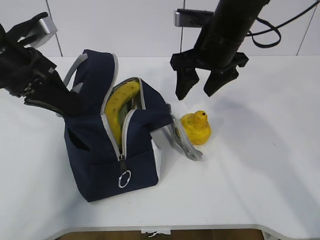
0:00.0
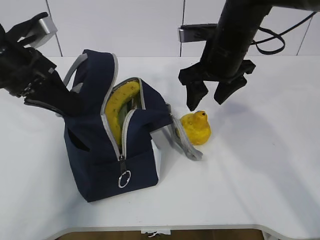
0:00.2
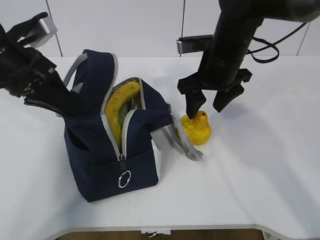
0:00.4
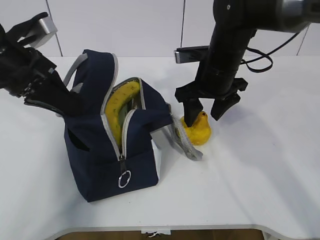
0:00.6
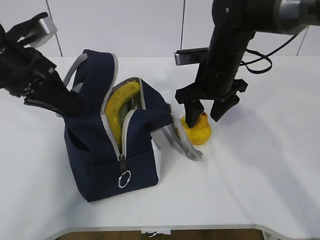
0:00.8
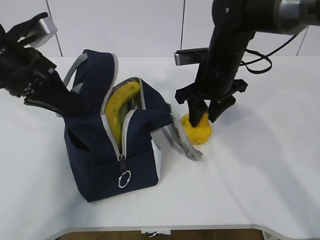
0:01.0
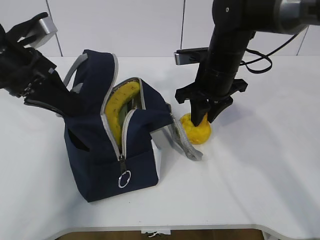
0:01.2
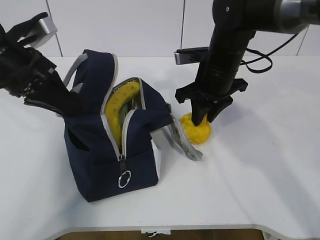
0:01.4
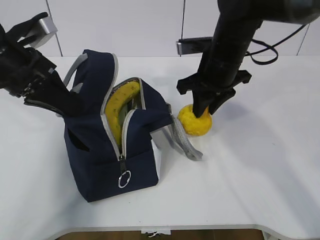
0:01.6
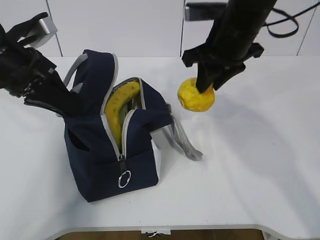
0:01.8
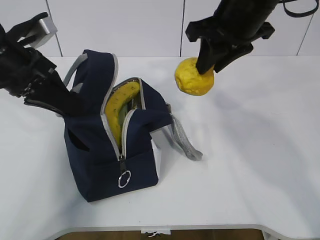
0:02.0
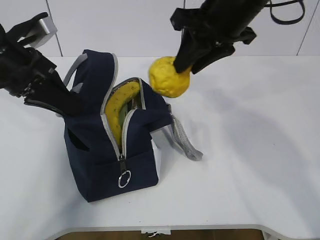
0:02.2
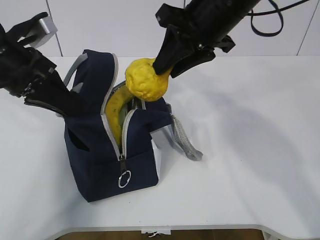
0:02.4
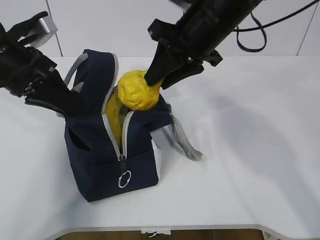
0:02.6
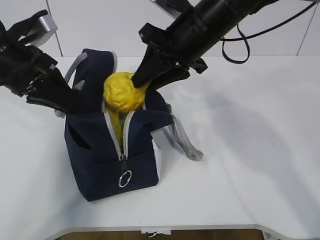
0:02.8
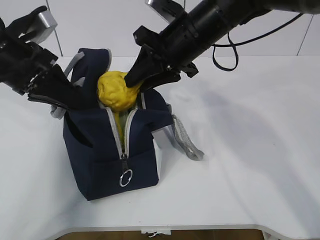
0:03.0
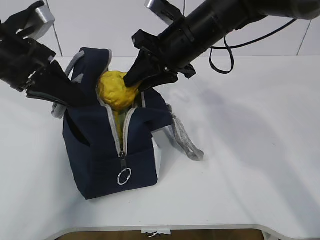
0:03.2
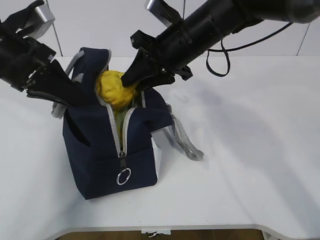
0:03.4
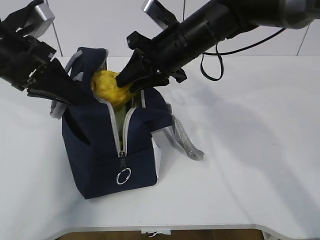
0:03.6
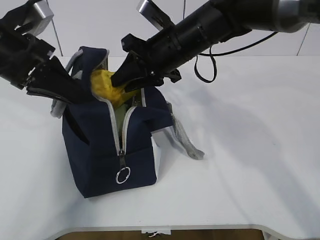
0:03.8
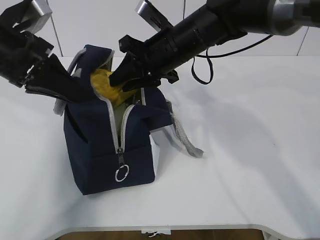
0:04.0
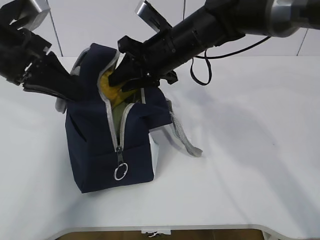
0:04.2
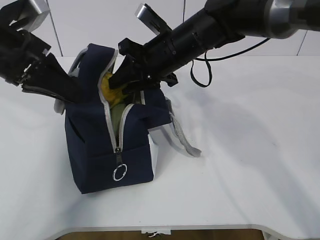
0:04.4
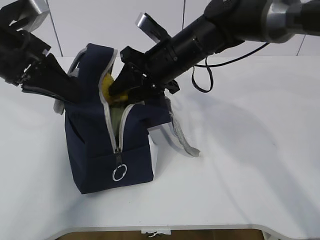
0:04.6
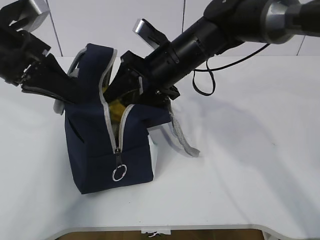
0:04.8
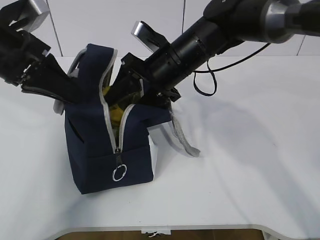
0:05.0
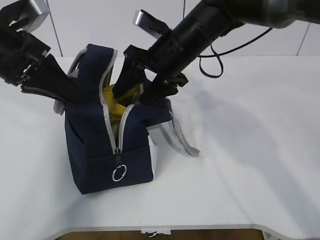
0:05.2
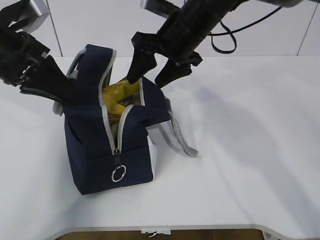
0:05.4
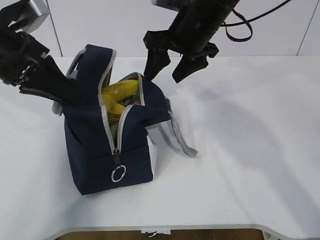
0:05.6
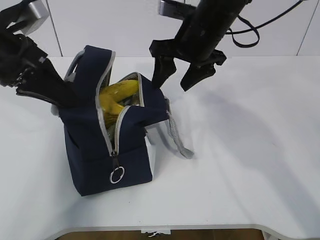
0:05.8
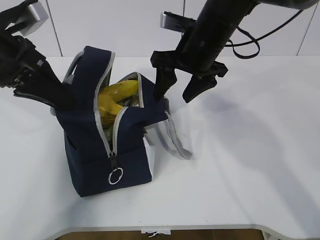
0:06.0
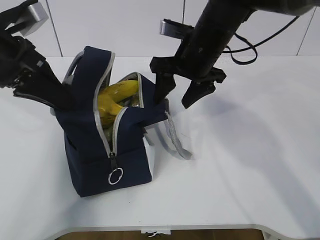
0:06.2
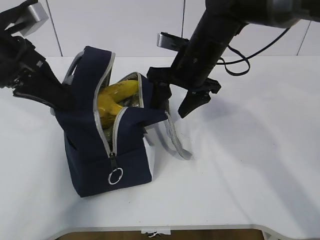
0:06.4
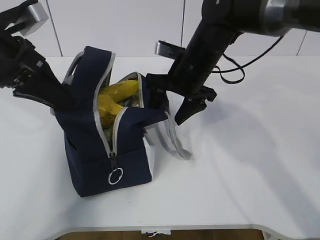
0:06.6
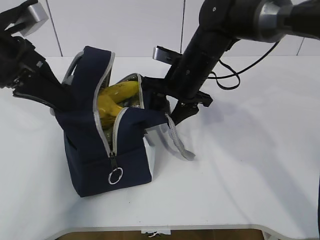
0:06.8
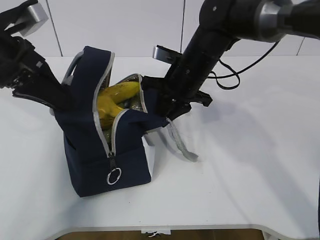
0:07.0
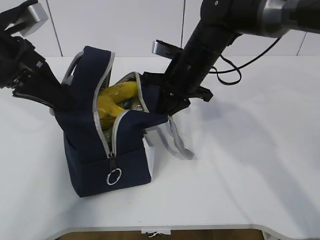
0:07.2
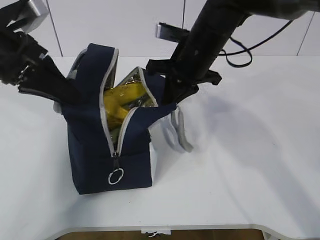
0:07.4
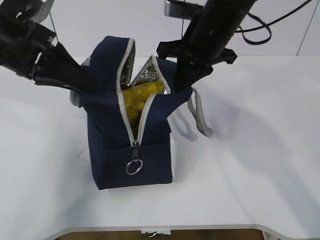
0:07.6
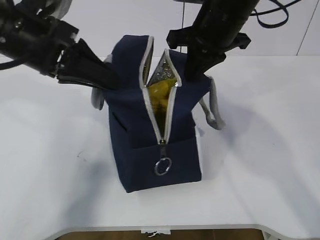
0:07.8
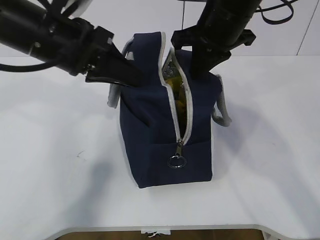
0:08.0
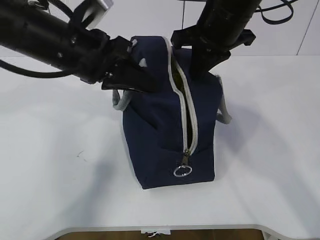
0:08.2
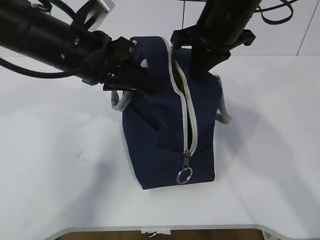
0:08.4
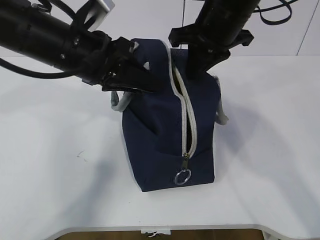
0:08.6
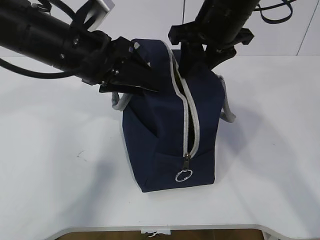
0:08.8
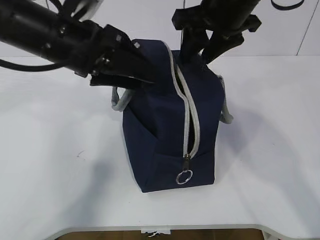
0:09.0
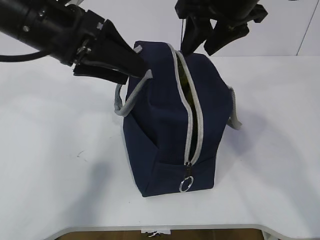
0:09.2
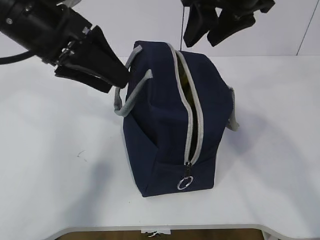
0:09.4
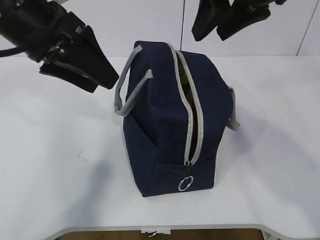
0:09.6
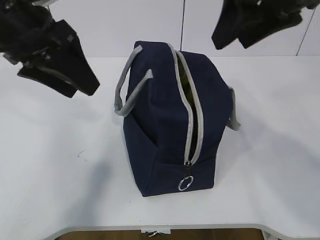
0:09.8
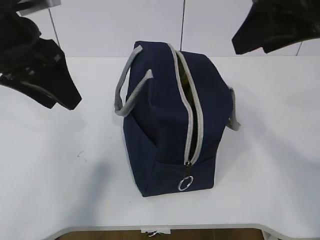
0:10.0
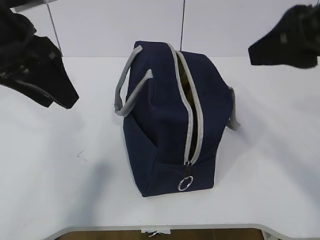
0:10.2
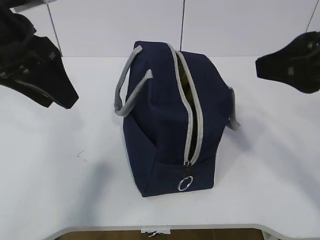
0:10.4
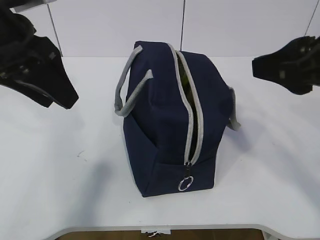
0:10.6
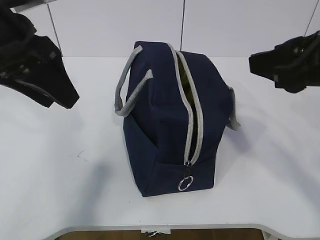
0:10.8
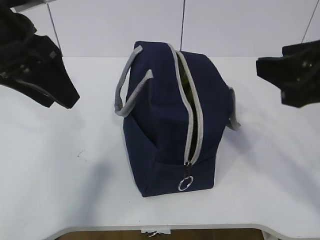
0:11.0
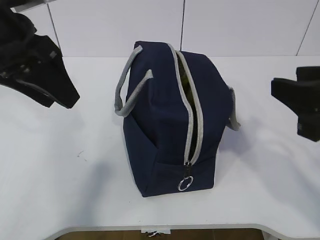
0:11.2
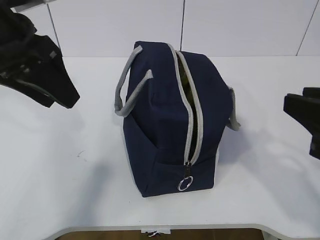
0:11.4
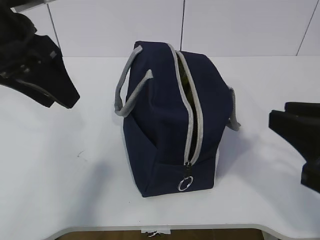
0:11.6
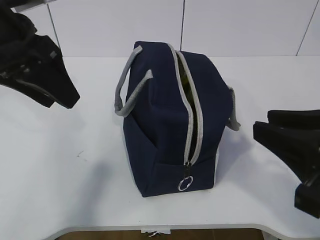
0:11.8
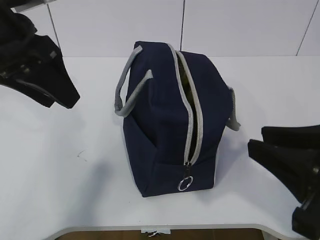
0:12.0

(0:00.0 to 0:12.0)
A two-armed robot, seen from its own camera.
Step, 0:00.0 - 0:01.2: Grasp the pear with the right gripper.
Step, 0:01.4 - 0:05.2: Place the pear into the package with the right gripper.
0:00.0 - 0:01.6: The right gripper closes up.
0:01.6 - 0:03.0: The right gripper travels to the left by some 5 cm.
0:03.0 - 0:04.4: The grippers stay close to where they were, moving slightly.
0:04.4 - 0:06.0: The right gripper opens its fingers.
0:06.0 - 0:07.6: The right gripper reaches about 5 cm downward, then returns, and closes up.
0:07.6 - 0:09.0: The left gripper goes some 5 cm to the right, and opens up. Meanwhile the right gripper is displaced upward by approximately 5 cm, and opens.
0:09.0 - 0:10.4: The left gripper heads to the left, covering about 5 cm. Meanwhile the right gripper shifts approximately 20 cm backward and to the right.
0:10.4 - 0:12.0: The right gripper shifts approximately 10 cm downward and backward.

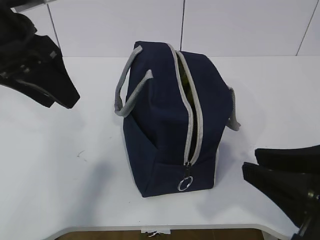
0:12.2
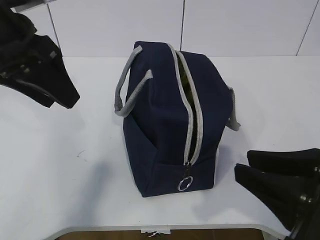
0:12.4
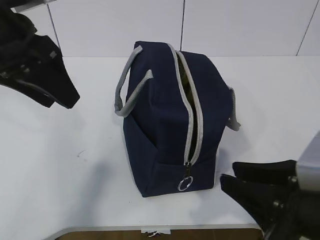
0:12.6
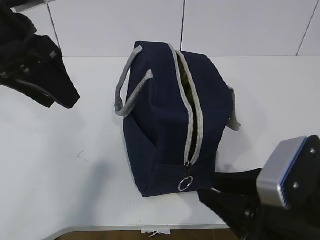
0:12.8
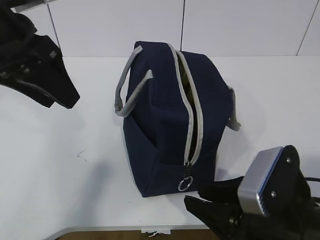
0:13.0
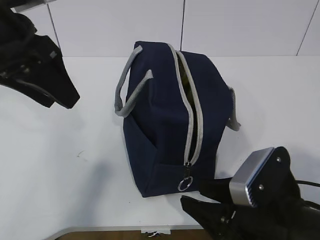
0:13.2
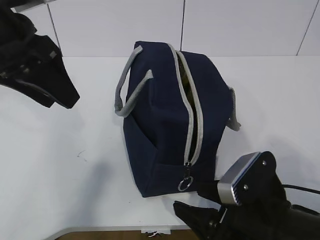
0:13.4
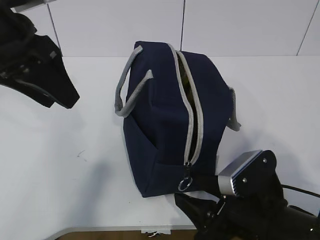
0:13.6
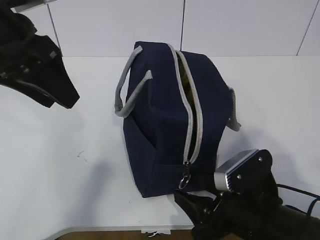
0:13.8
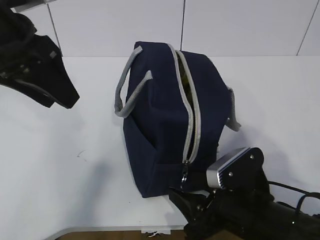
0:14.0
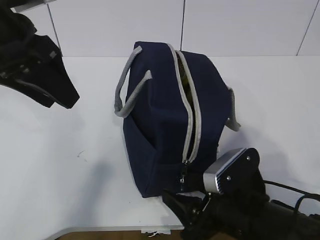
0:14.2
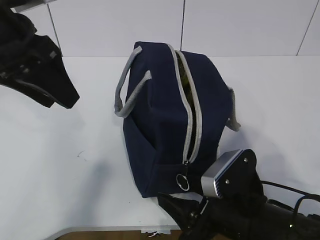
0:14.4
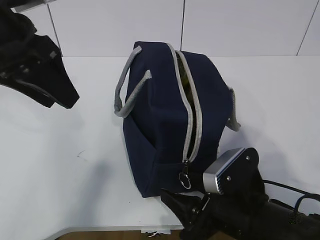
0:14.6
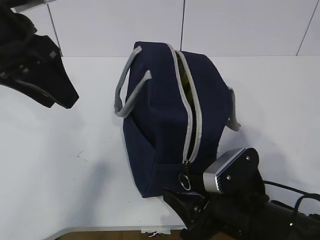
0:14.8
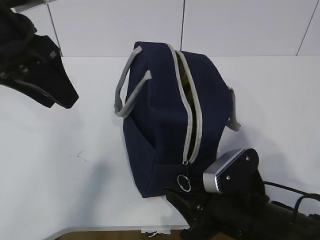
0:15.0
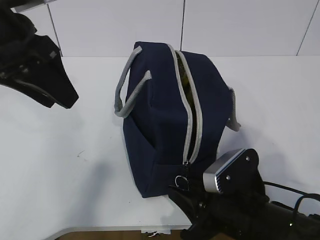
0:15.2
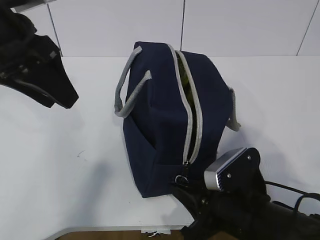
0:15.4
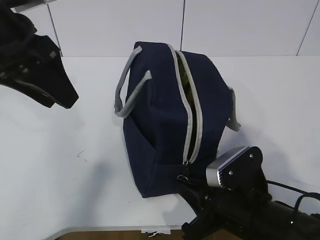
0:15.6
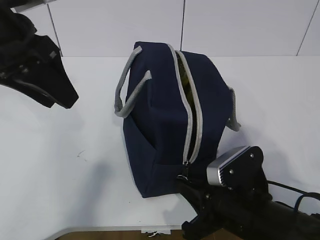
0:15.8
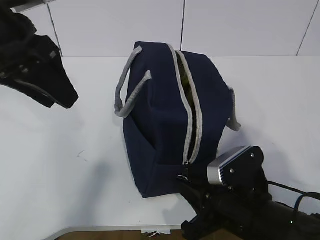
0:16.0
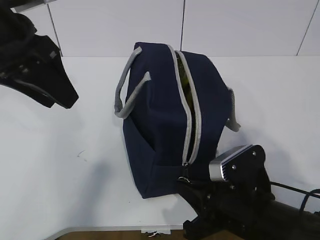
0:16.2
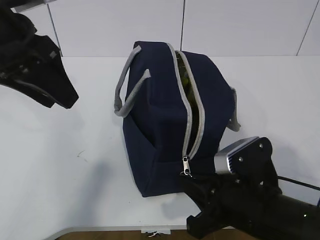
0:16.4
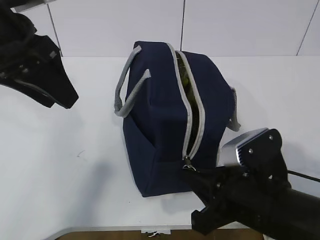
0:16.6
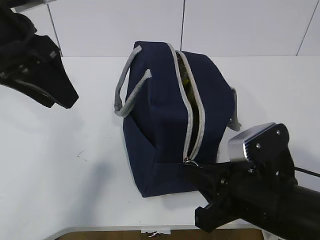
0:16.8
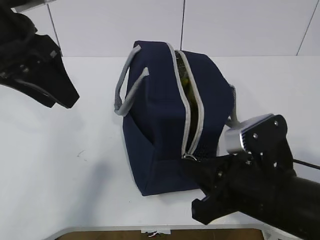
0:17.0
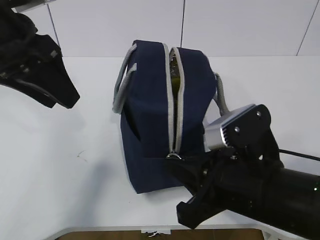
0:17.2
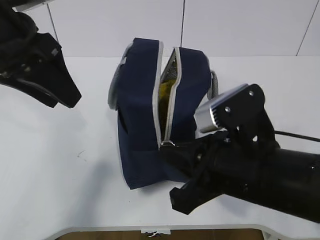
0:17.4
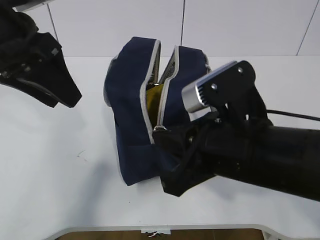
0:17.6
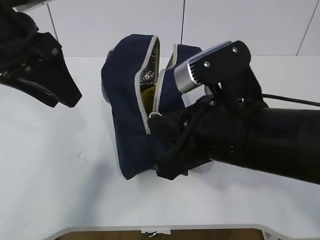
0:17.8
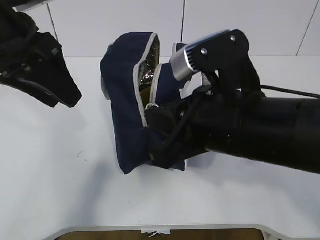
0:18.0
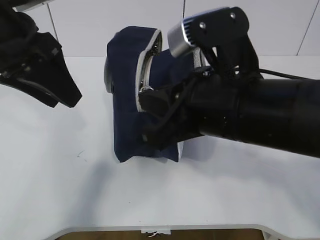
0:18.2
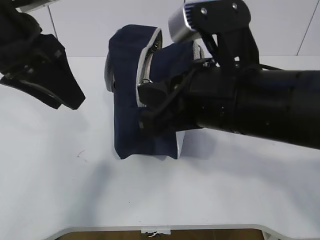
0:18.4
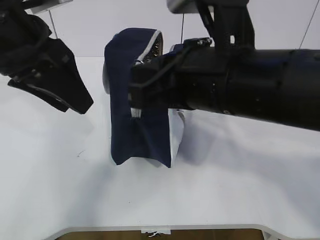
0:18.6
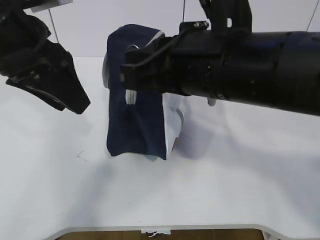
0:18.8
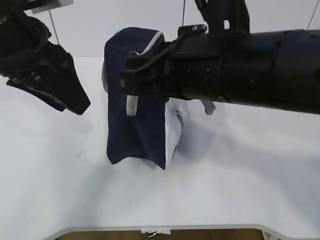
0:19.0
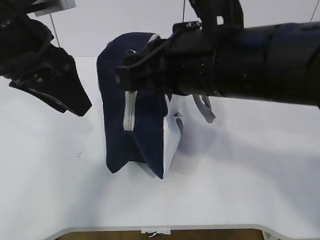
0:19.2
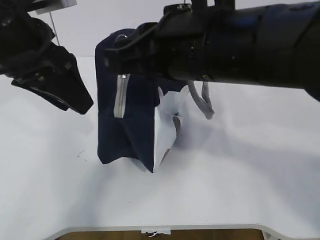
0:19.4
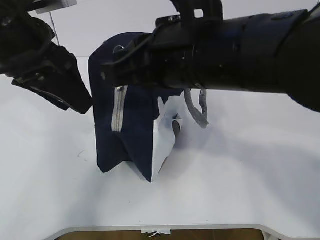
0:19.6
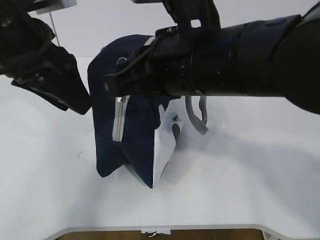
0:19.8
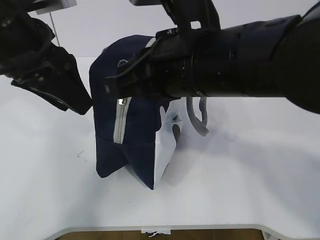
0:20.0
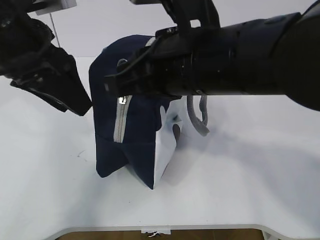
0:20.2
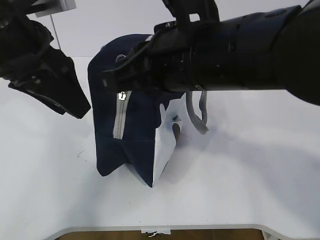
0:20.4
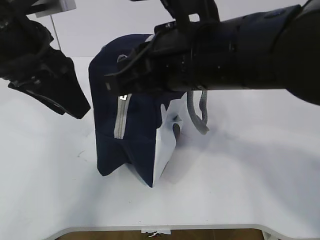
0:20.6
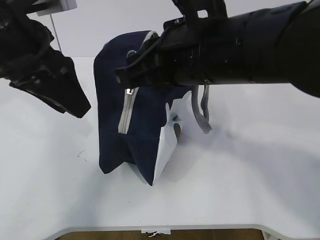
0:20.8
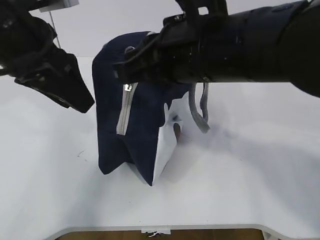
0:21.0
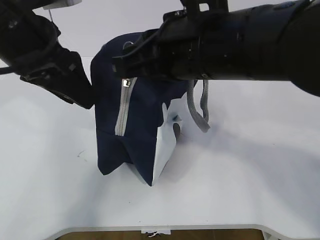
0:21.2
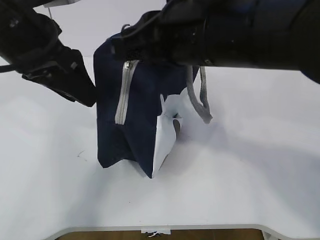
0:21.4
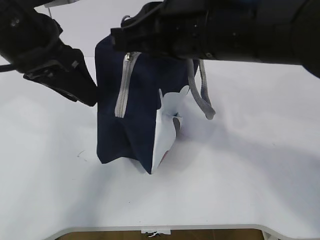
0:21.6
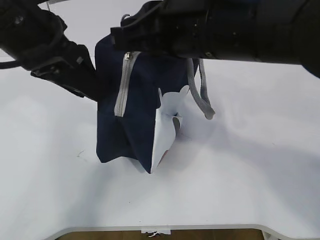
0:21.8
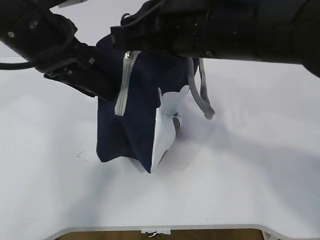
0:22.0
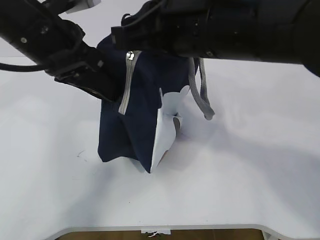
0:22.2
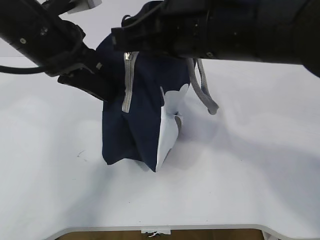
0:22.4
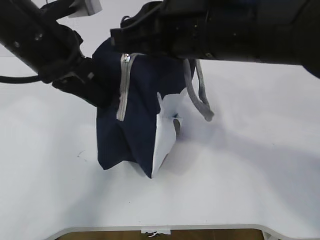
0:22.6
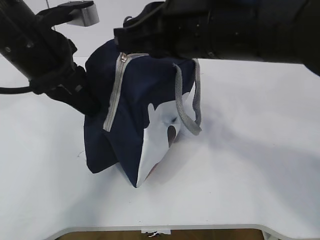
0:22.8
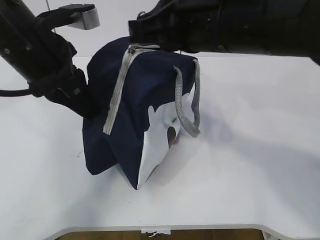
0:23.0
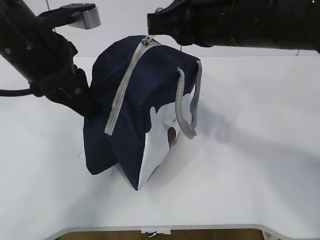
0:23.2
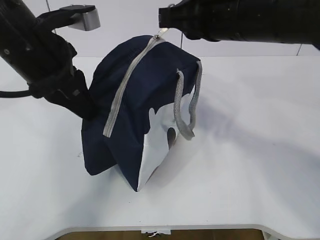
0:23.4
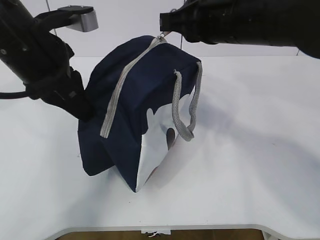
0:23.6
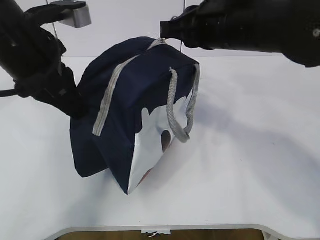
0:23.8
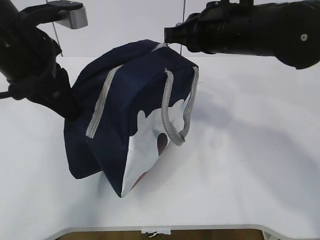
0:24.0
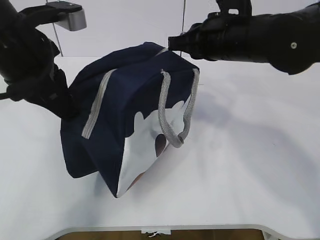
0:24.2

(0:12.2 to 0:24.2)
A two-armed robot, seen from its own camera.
0:12.2 - 0:13.8: The right gripper moves downward, forward and to the left, approximately 15 cm, and opens up.
0:13.8 - 0:15.2: The right gripper closes up.
0:15.2 - 0:16.6: The right gripper closes.
0:16.6 - 0:18.2: The right gripper goes approximately 15 cm upward.
0:18.2 - 0:19.8: The right gripper shifts by about 5 cm.
0:19.8 - 0:21.2: There are only small adjustments of the grippers.
0:21.2 - 0:22.6: The left gripper closes its fingers.
0:22.6 - 0:24.2: The right gripper moves forward, to the right and downward, approximately 15 cm.
